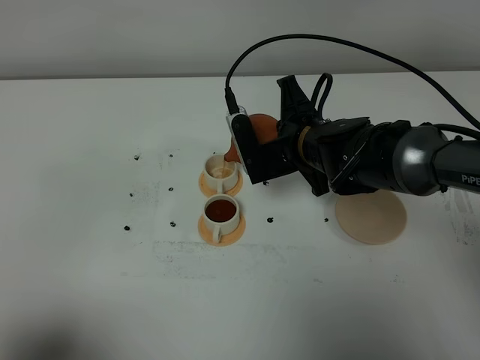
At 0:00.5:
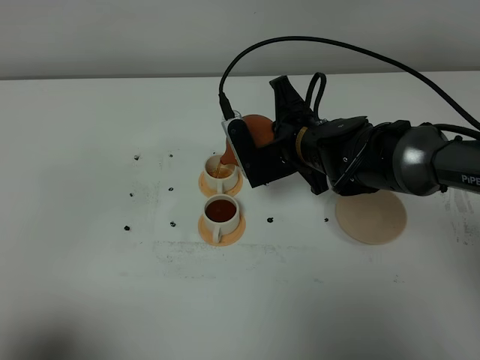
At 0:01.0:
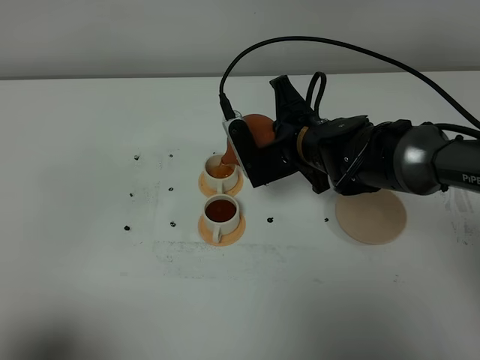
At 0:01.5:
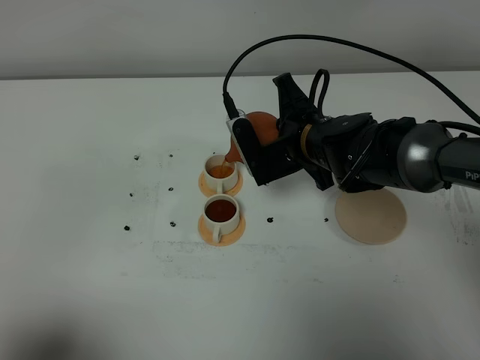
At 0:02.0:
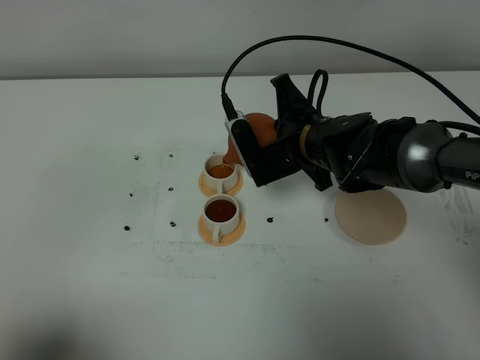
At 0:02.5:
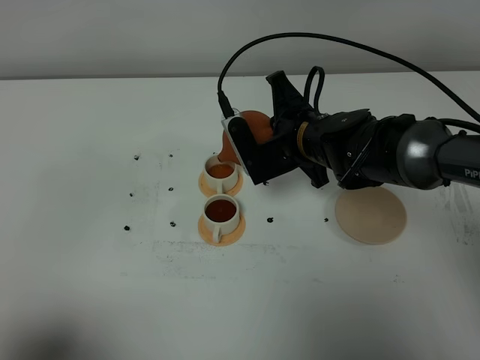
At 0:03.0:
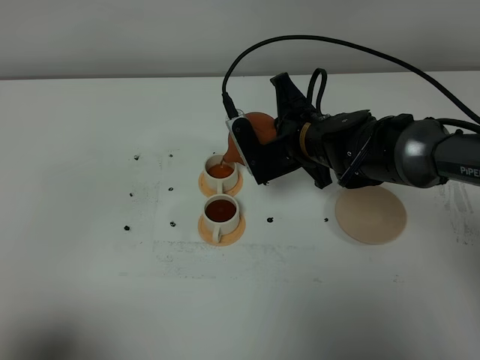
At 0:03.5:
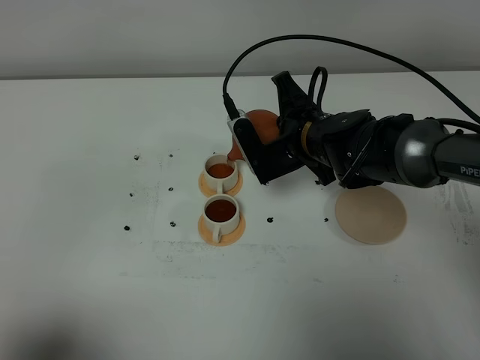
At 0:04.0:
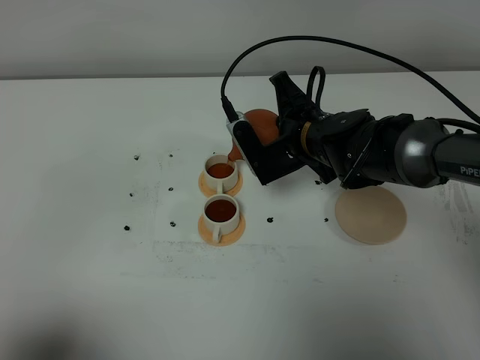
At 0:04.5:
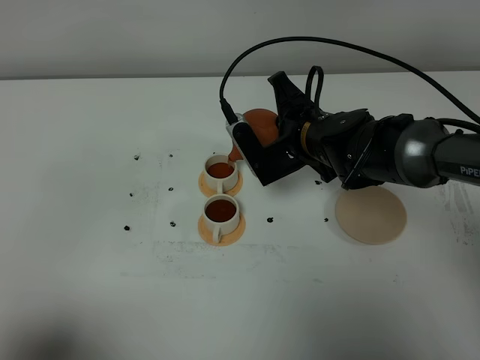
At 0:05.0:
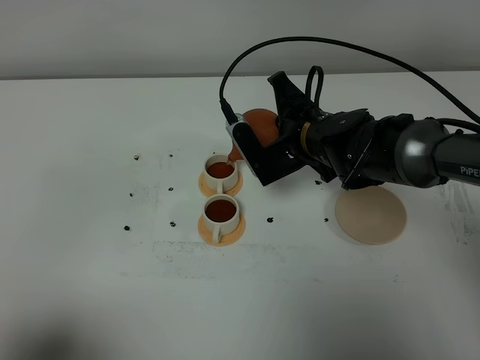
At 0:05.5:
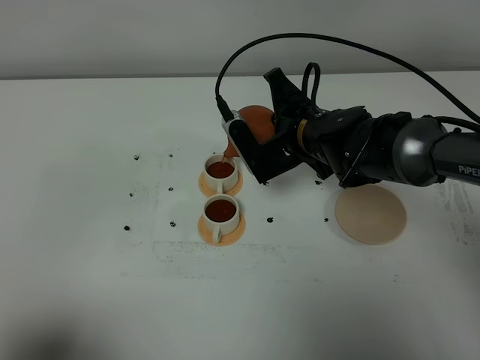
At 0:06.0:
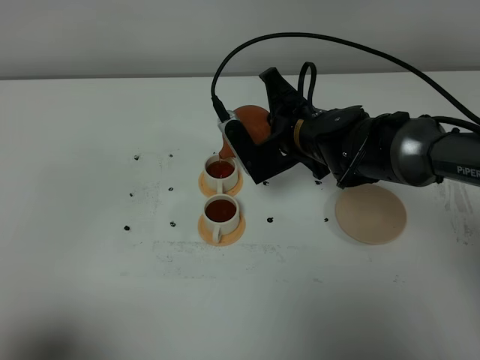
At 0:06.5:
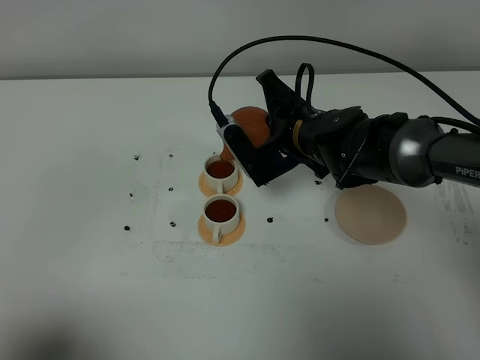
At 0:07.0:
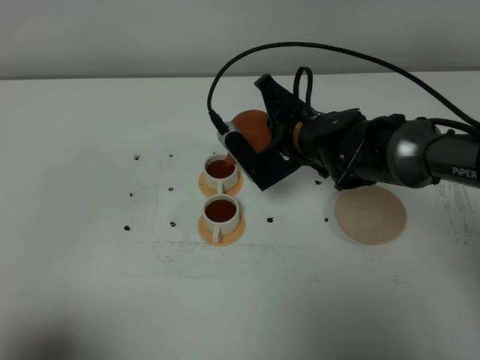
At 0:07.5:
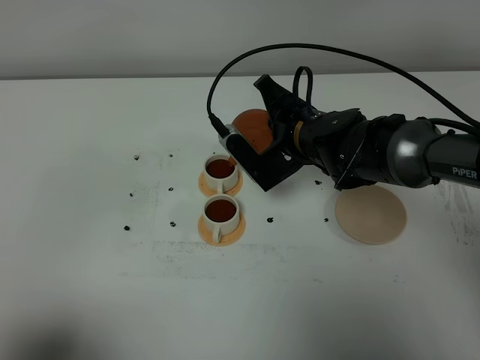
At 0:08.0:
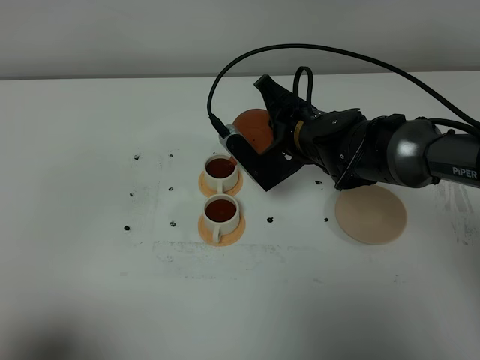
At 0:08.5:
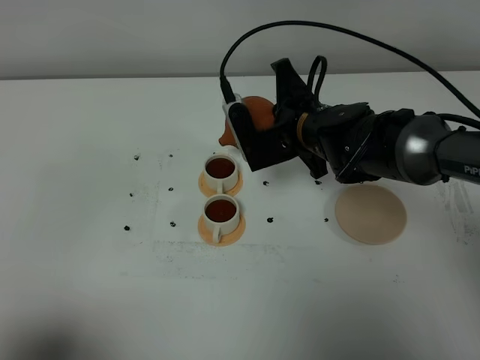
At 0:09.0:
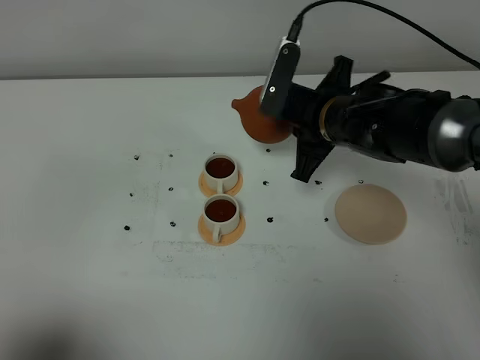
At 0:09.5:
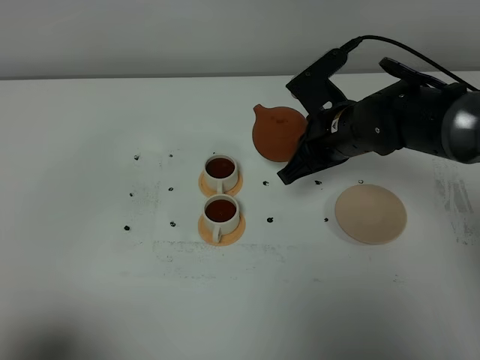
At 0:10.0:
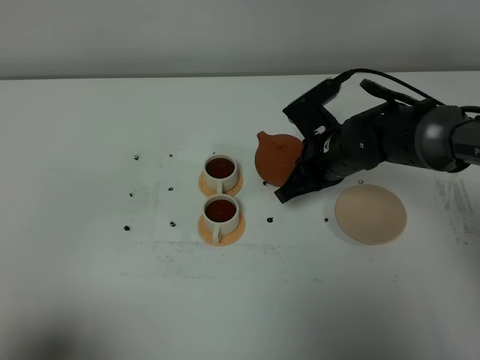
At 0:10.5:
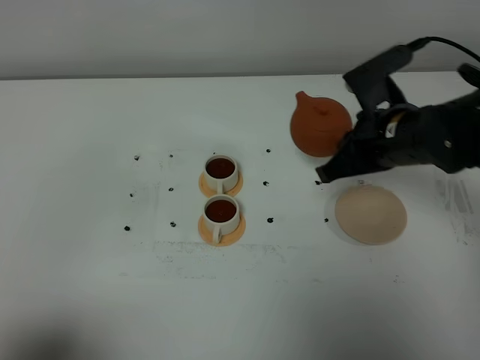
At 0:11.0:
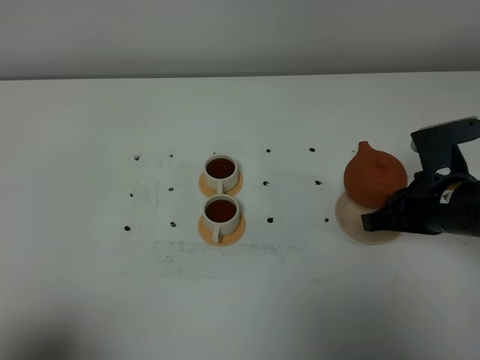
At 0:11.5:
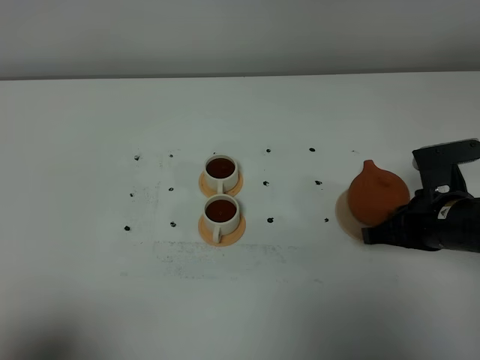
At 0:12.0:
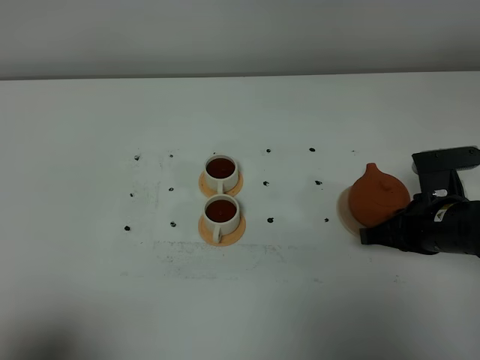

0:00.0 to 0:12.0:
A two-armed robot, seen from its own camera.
Task of the whole recording: grasp the brown teapot and pour the tea into the two white teacups one by one, put the brown teapot back in its original place.
Step, 0:00.0 to 0:08.5: Pour tea into the teacup with the right gripper.
0:00.0 to 0:02.0: There are only small adjustments of the grippers.
0:02.0 to 0:04.0: Both grippers stay put.
0:04.0 to 0:06.0: Both grippers stay about where they are.
0:06.0 to 0:08.0: There are only small adjustments of the grippers.
0:08.0 to 0:10.0: The right gripper shifts by roughly 5 cm.
0:10.0 to 0:12.0: The right gripper shifts roughly 15 cm to the right and backward.

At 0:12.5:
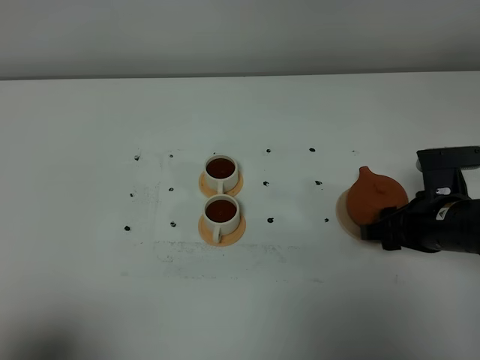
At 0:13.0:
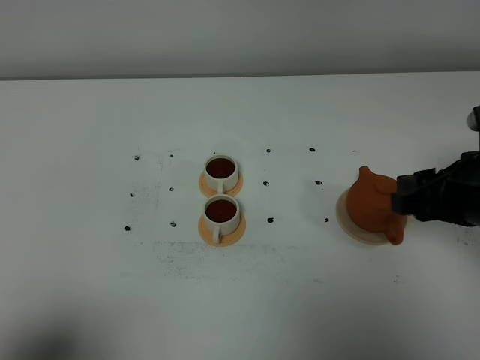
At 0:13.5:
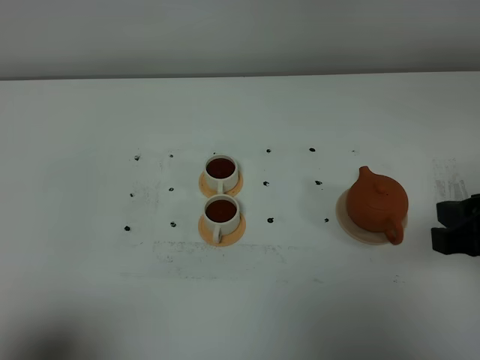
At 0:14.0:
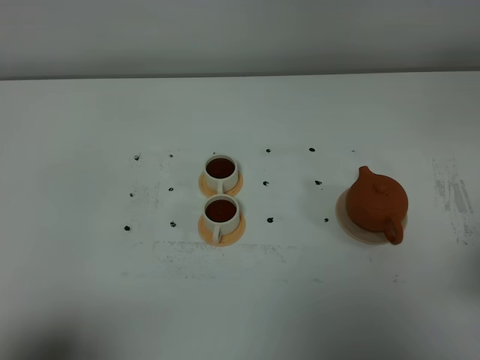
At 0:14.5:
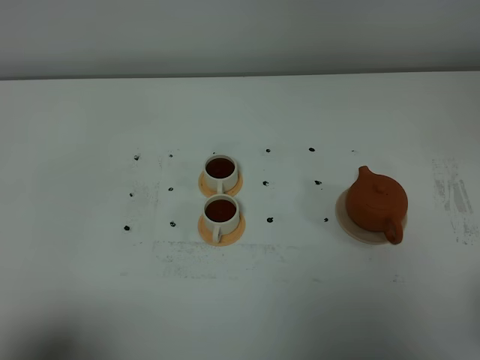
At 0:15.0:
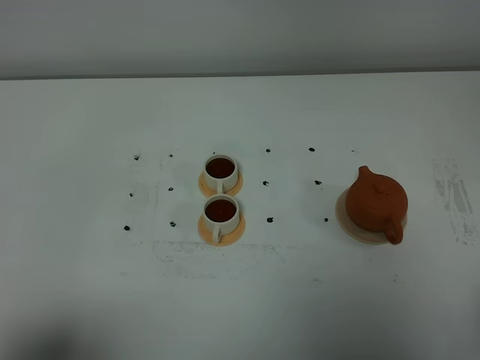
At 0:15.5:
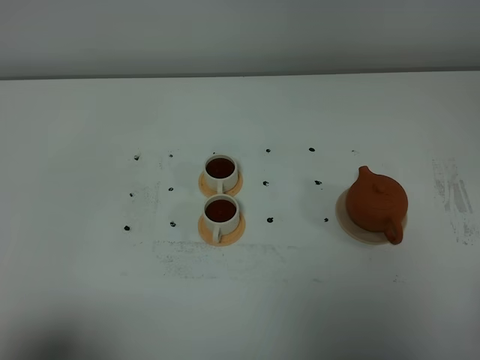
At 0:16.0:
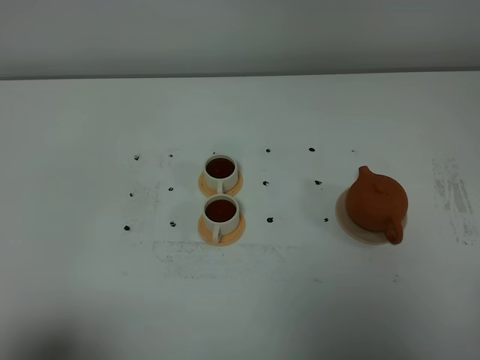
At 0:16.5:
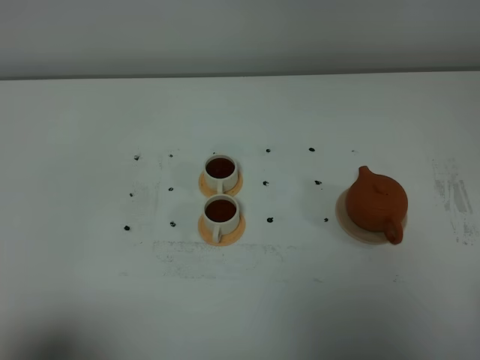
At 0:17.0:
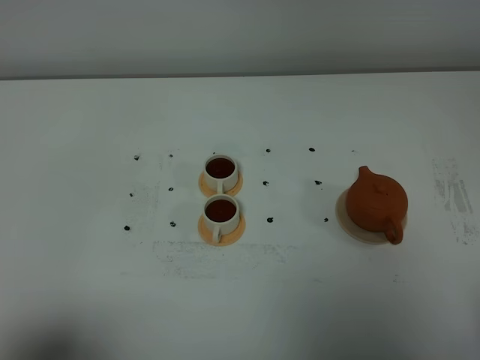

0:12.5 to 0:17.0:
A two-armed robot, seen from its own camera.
Task of the whole recording: grasp the brown teapot and pour the tea into the two white teacups one by one, put the brown teapot back in its original place.
0:12.5 to 0:14.5: The right gripper shifts some 25 cm backward and upward, and closes up.

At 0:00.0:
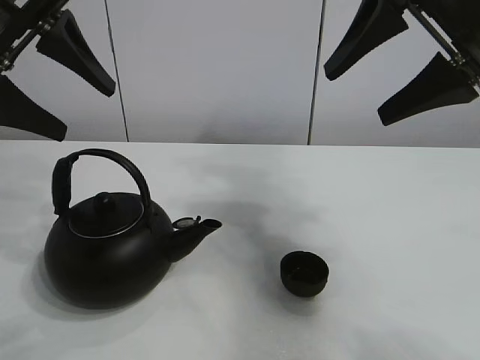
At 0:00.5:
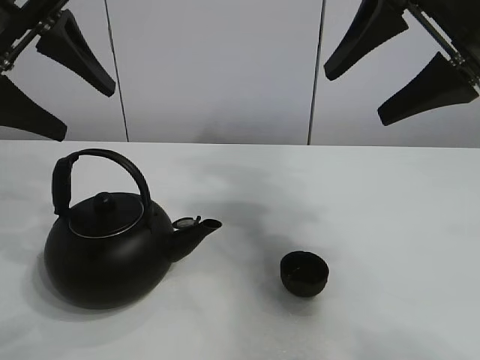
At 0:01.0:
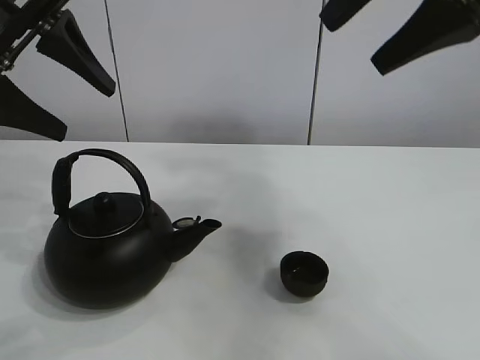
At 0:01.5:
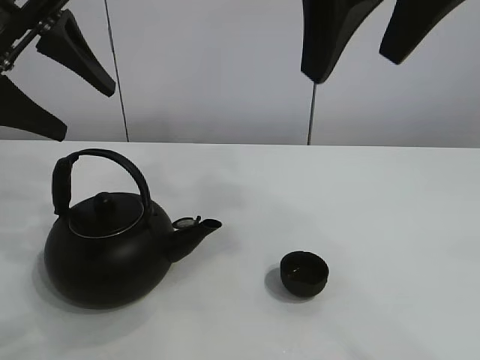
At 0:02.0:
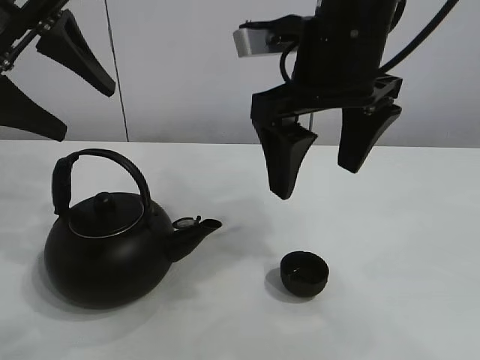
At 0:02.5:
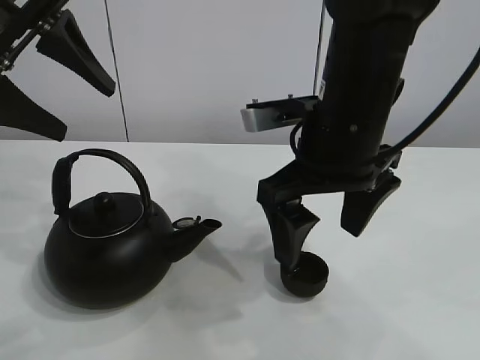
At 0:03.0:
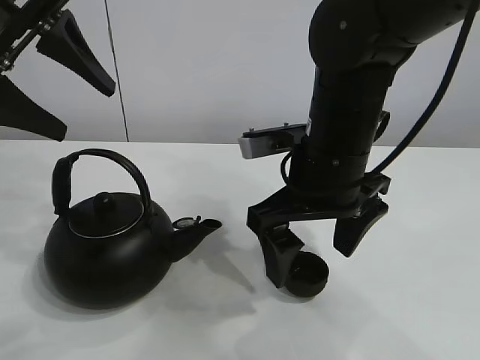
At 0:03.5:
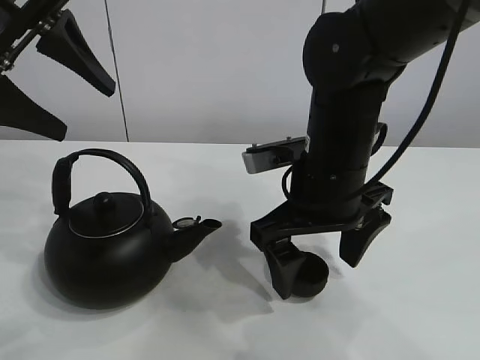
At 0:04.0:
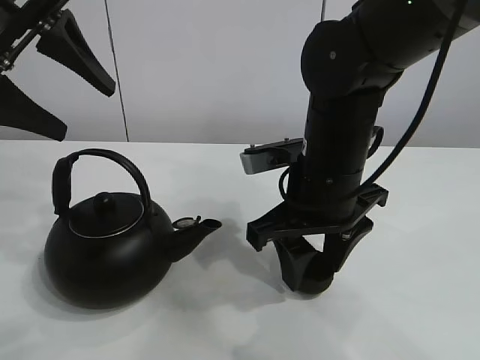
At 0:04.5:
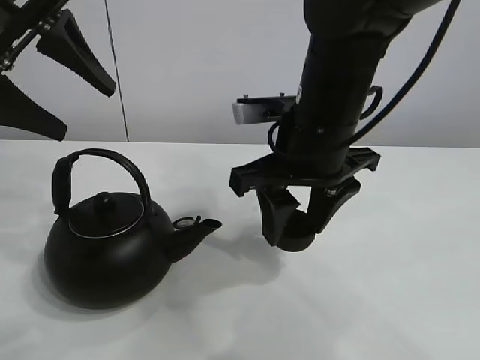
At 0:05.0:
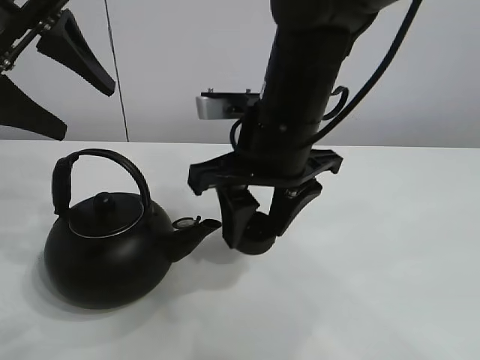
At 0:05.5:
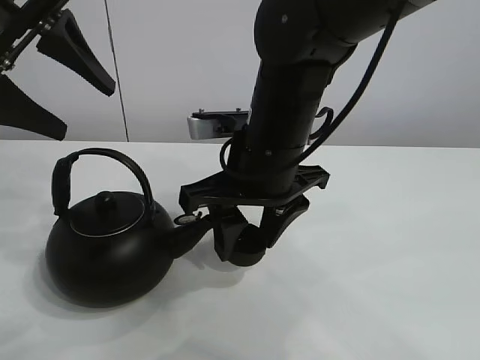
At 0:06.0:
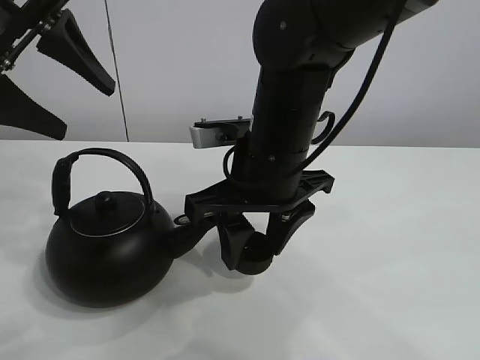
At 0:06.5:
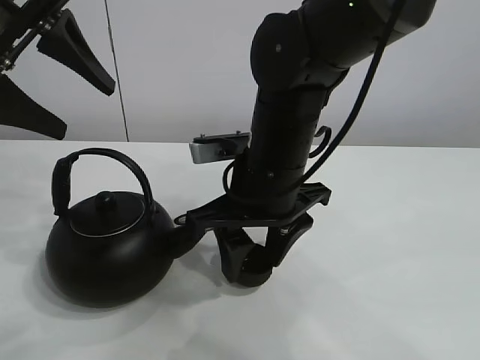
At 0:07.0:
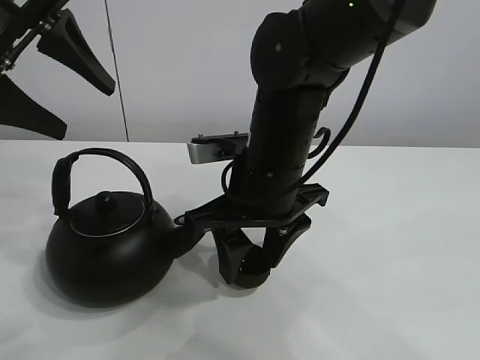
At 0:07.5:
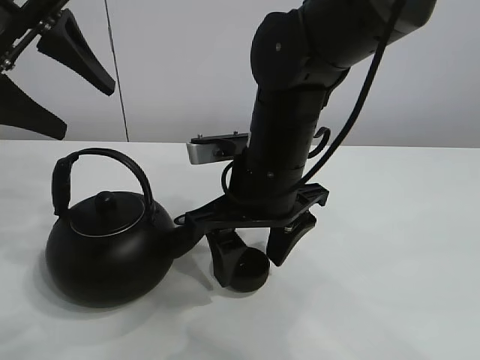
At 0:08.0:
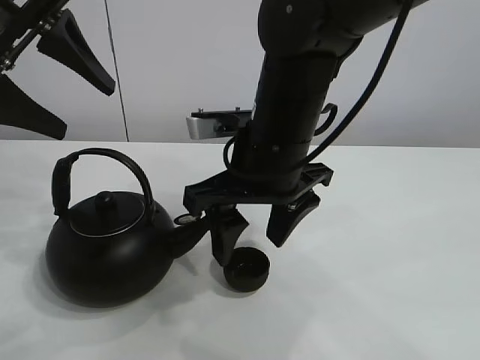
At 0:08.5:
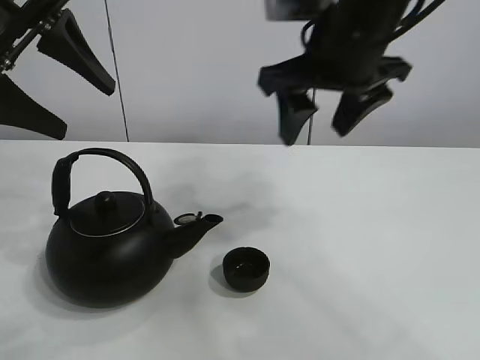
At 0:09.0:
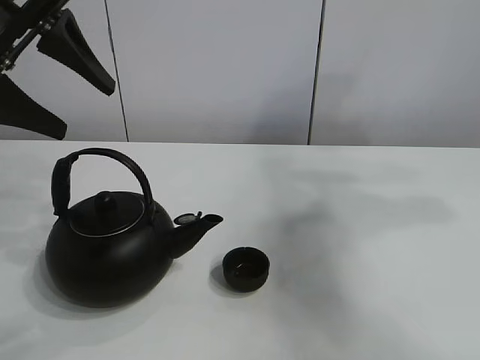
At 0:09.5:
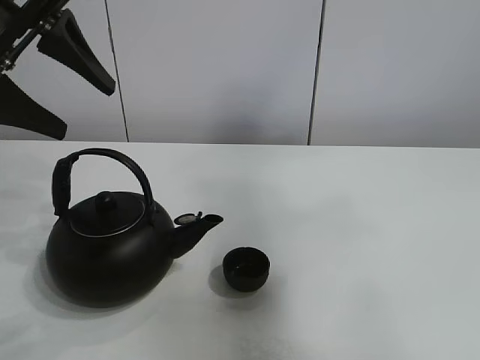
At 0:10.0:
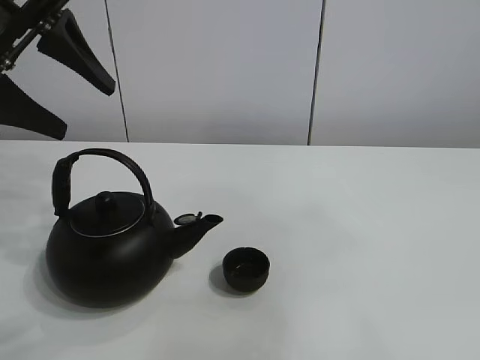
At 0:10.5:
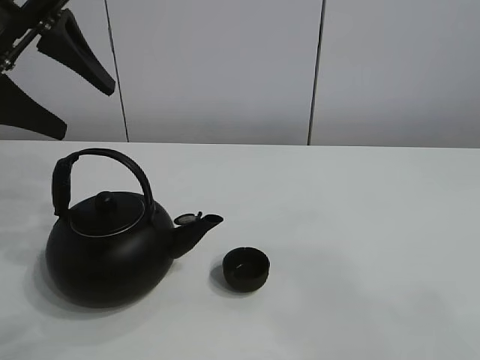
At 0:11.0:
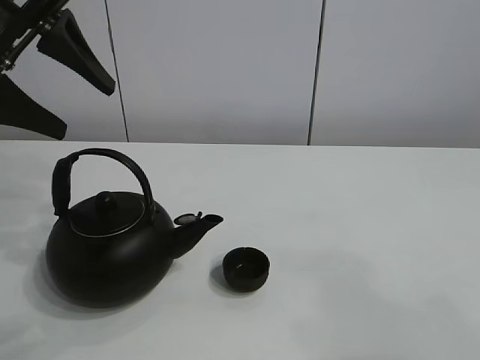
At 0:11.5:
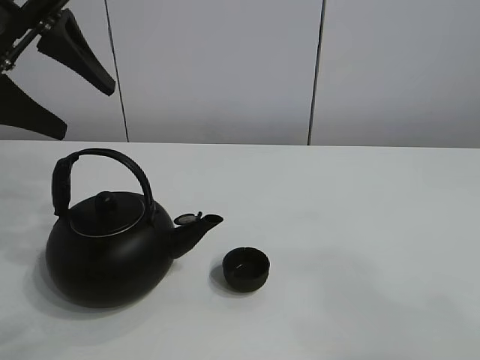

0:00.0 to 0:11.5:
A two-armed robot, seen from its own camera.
Task of the whole recording: pour tea into the teacup.
Step, 0:00.0 to 0:04.0: Pick up the teacup with the right gripper.
Step, 0:04.5 to 0:07.0: Place the teacup in the center of view with the right gripper.
0:02.0 to 0:04.0: The right gripper shifts approximately 15 cm downward, and closes.
0:04.0 to 0:06.0: The right gripper travels to the left by about 5 cm.
0:06.0 to 0:07.5: The right gripper opens its fingers.
0:07.5 to 0:09.5: The right gripper shifts roughly 50 cm upward, to the right and backward.
0:09.5 to 0:11.5: The right gripper moves downward and backward, about 25 cm.
